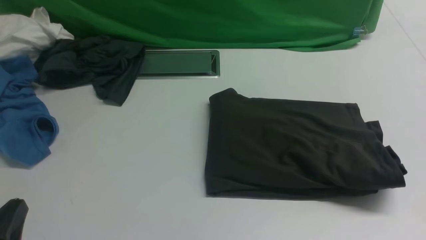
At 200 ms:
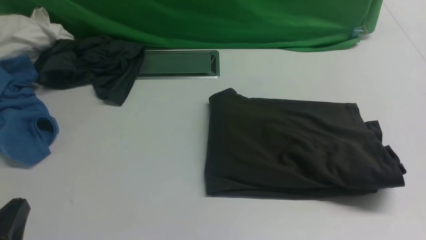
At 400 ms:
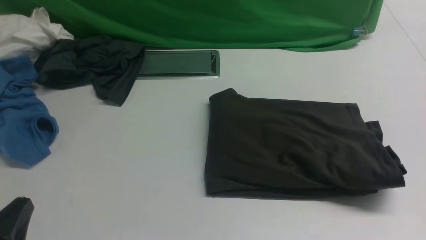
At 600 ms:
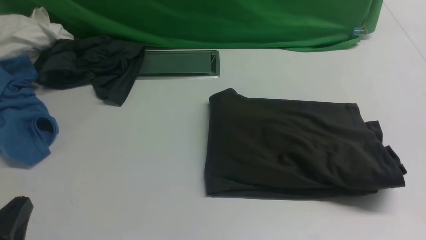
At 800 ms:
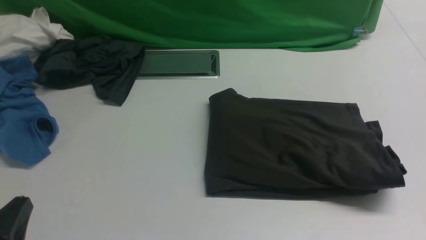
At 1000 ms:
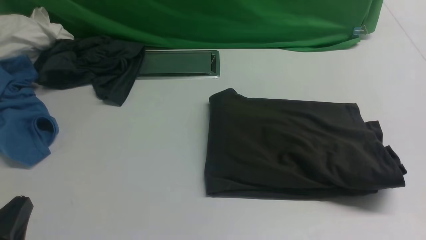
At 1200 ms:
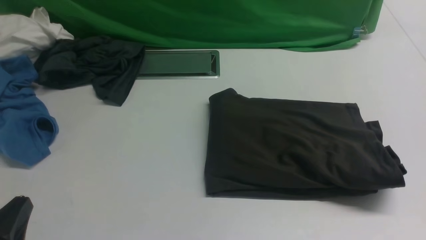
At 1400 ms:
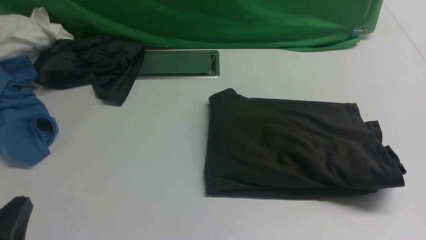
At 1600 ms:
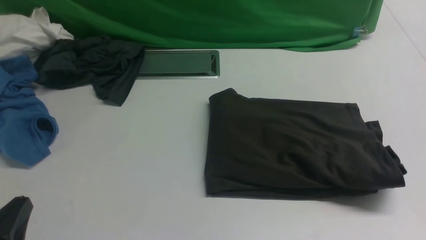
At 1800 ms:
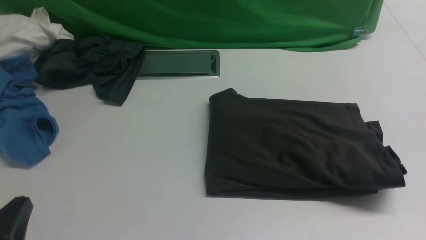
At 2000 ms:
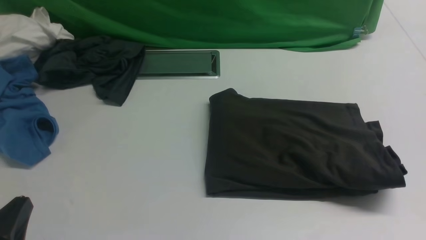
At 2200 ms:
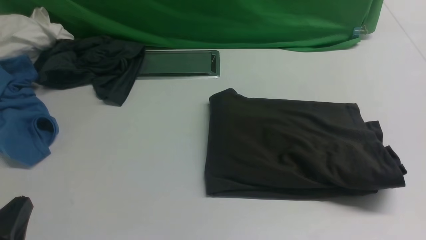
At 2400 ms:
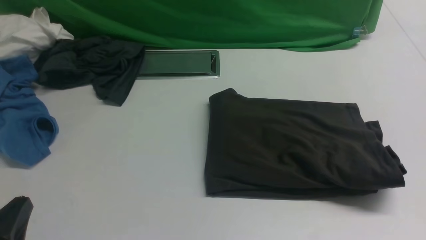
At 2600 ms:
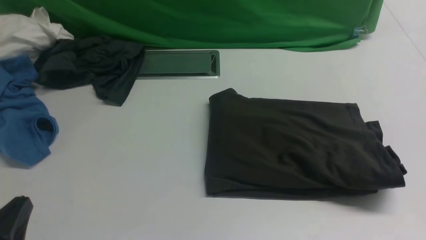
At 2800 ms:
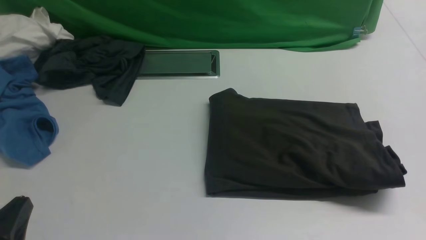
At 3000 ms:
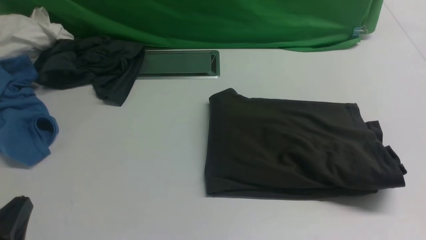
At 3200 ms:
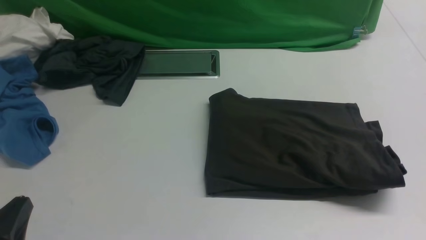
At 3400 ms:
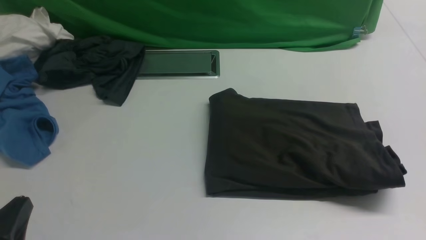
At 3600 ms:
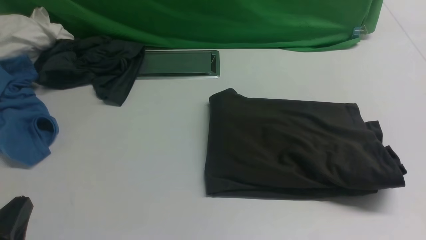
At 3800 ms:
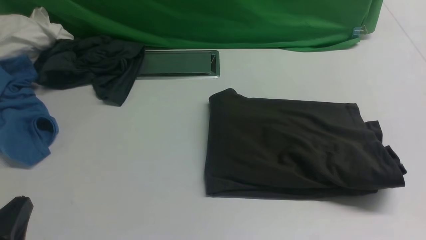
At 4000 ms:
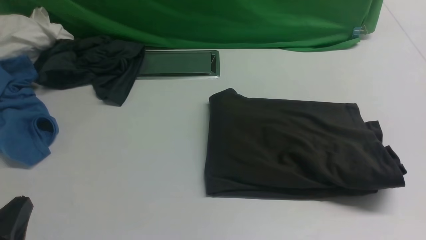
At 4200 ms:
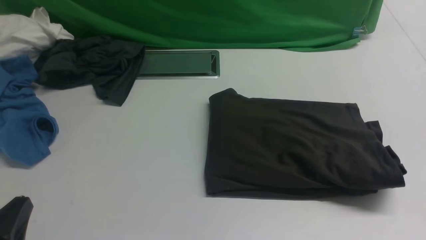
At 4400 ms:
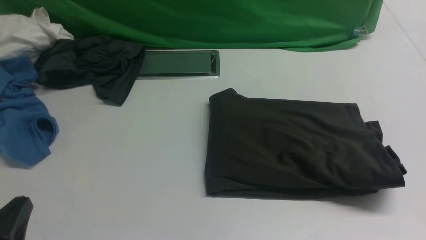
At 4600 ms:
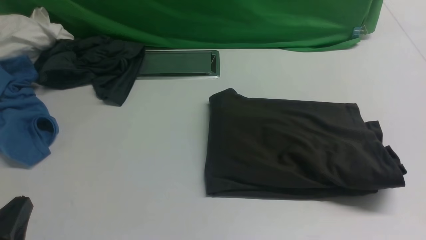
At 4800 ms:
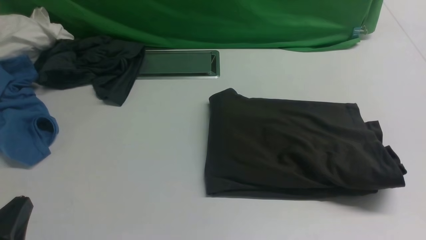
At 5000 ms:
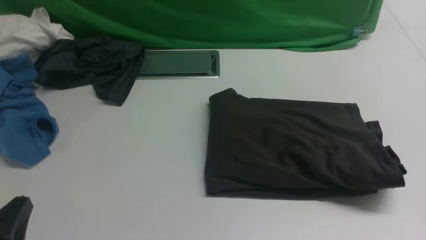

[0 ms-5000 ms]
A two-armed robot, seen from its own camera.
3400 ms to 5000 ms: Neither gripper changes place.
